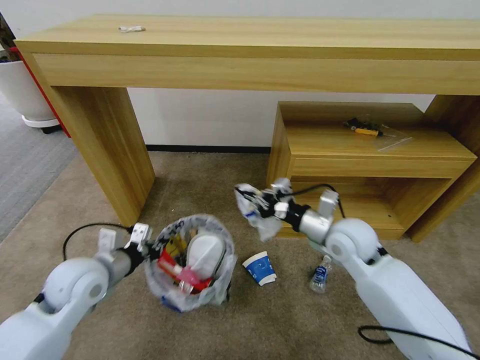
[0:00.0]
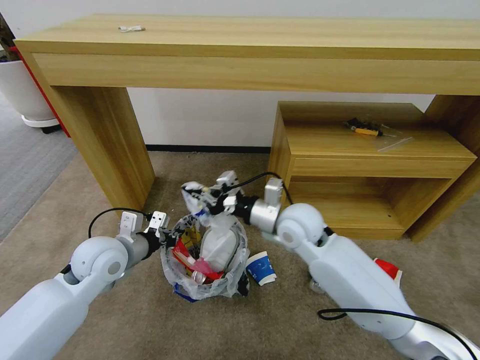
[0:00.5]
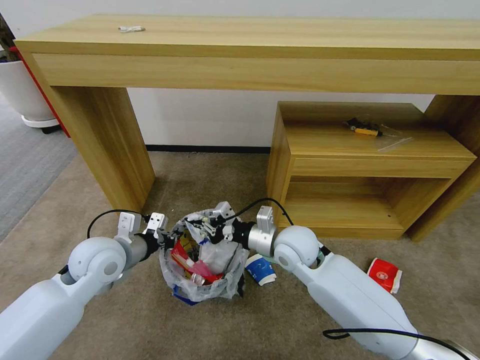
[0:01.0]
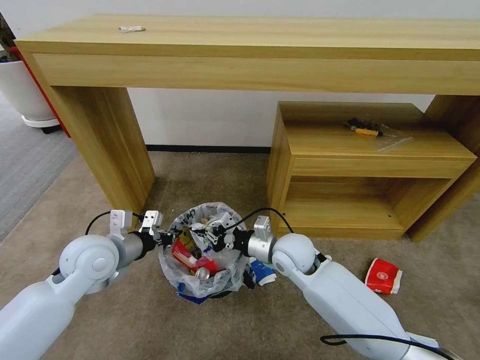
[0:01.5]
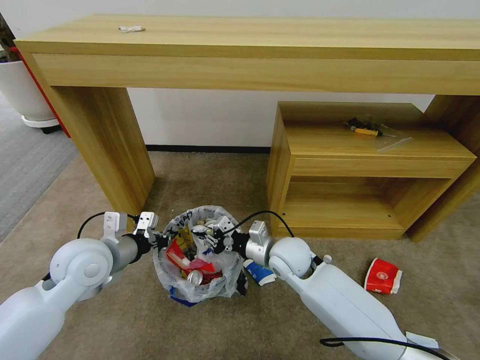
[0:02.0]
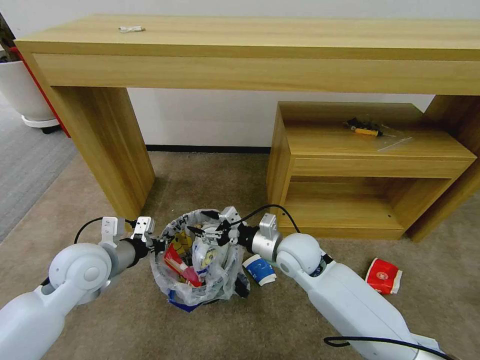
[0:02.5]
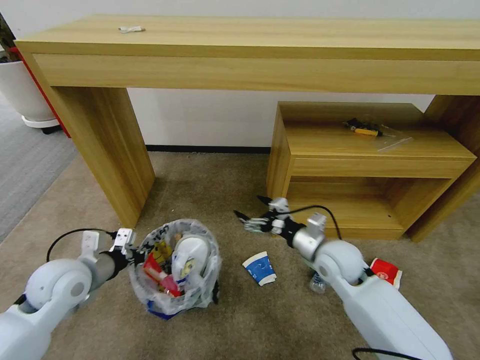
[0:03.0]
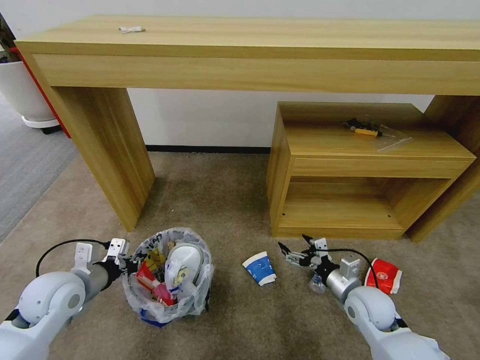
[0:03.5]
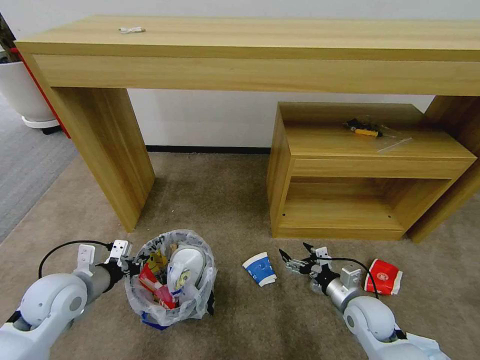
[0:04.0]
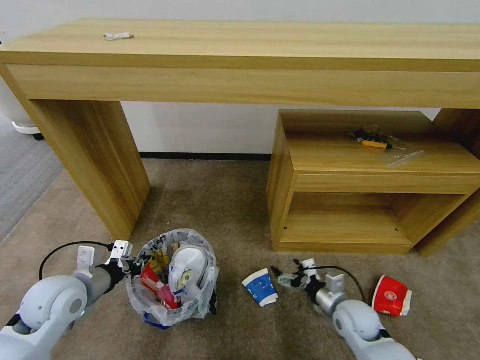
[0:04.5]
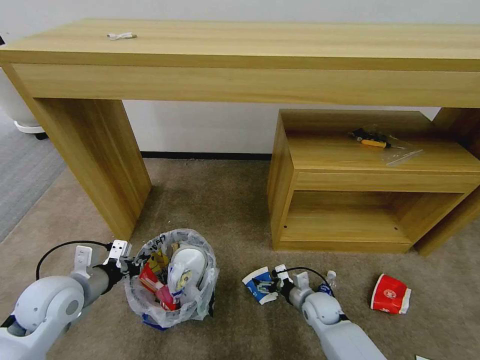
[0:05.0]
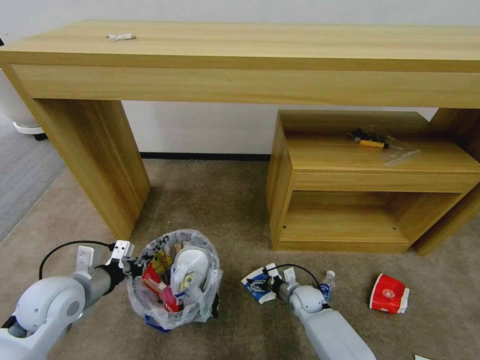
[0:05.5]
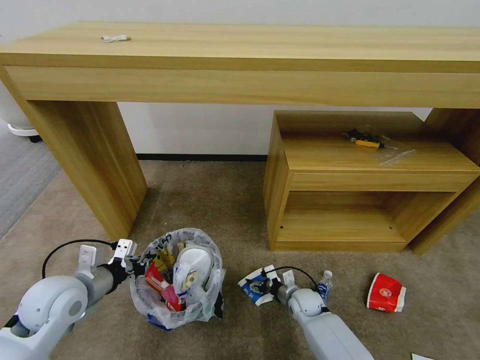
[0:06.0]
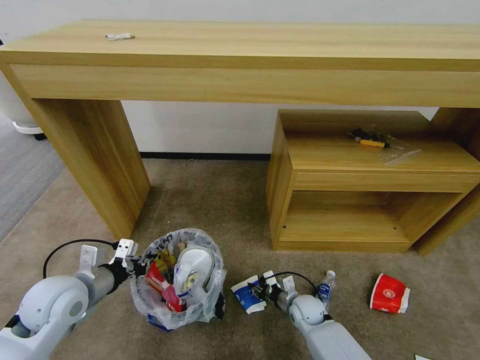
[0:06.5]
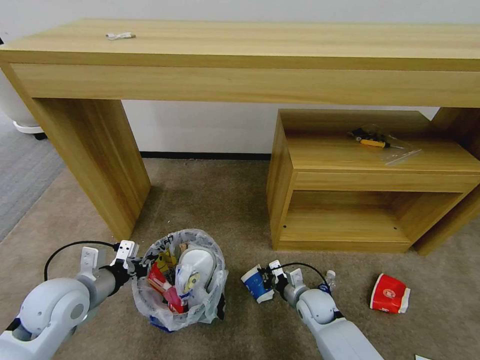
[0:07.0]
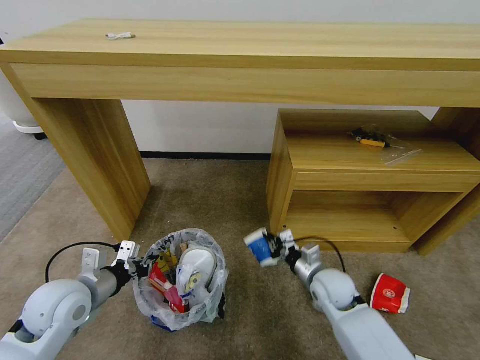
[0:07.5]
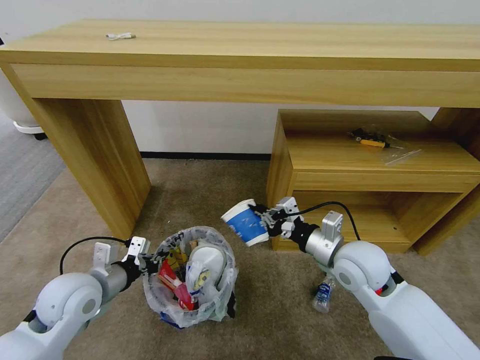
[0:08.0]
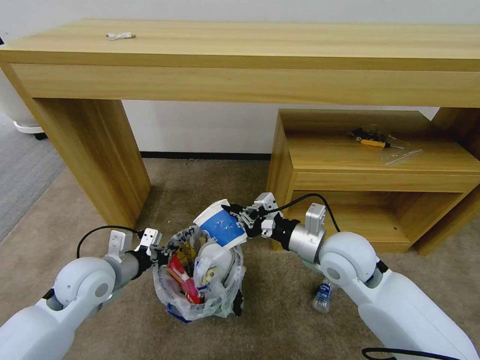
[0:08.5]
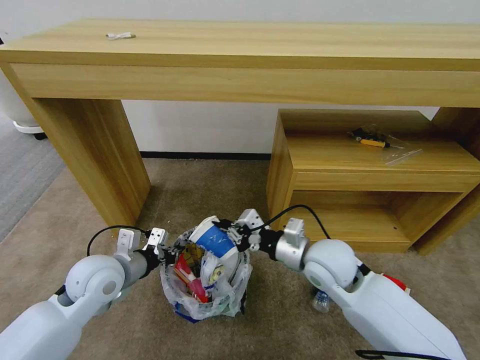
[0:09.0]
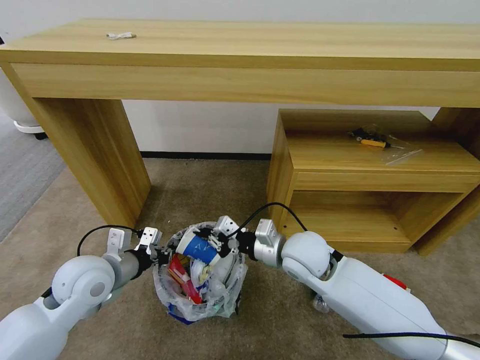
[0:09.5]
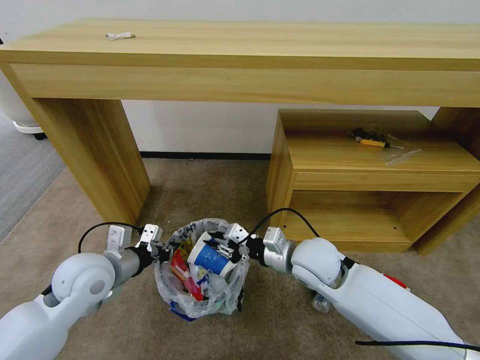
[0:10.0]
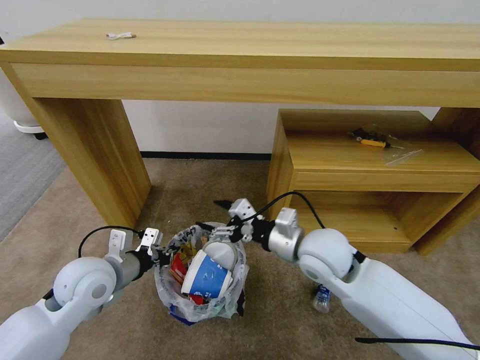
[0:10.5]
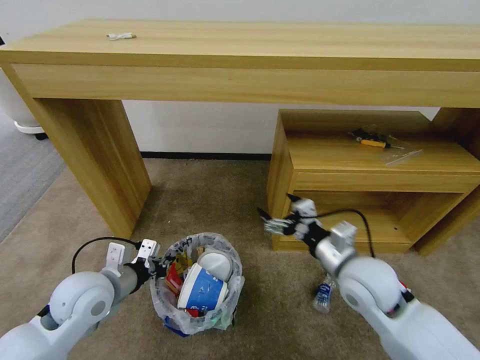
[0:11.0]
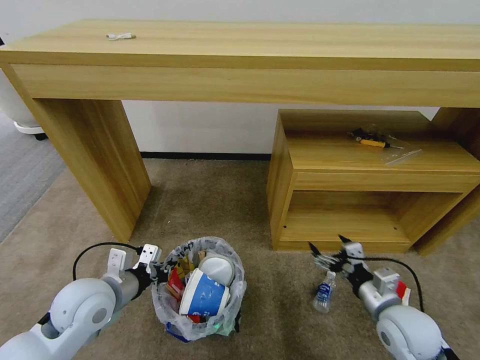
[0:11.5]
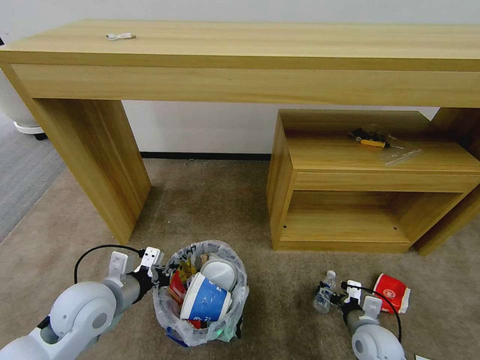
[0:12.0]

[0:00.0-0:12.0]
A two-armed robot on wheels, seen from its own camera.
Task of the whole recording: Pick up the trash bin and place the garbage on the floor into it.
0:00.0 to 0:02.0: The right gripper travels to the left and downward by approximately 15 cm.
0:02.0 to 0:04.0: The right gripper is displaced to the right, backward and downward by approximately 25 cm, and opens; the left gripper heads downward and to the left, covering roughly 10 cm.
0:04.0 to 0:06.0: The right gripper travels downward, to the left and forward by approximately 20 cm.
0:06.0 to 0:08.0: The right gripper travels upward by about 30 cm, and closes up.
0:08.0 to 0:10.0: The right gripper goes some 10 cm to the left.
0:10.0 to 0:12.0: The right gripper heads downward, to the right and backward, covering some 25 cm, and opens. The left gripper ends up some 5 cm from where it was.

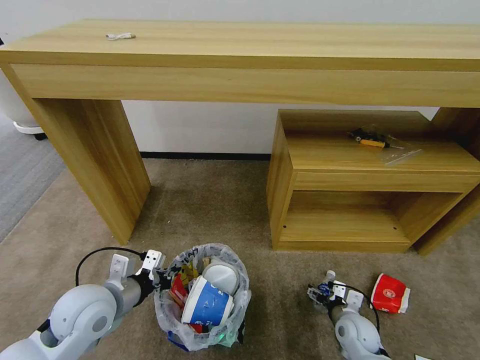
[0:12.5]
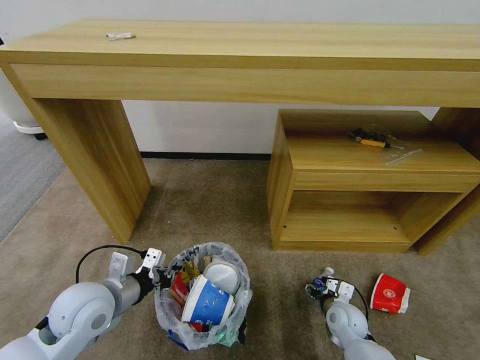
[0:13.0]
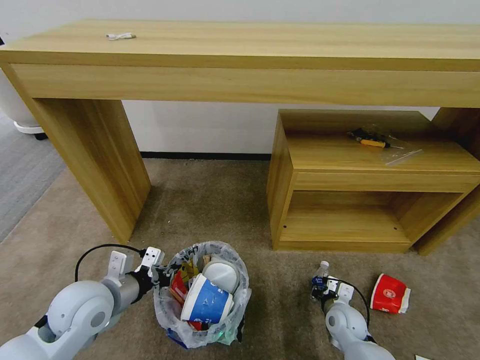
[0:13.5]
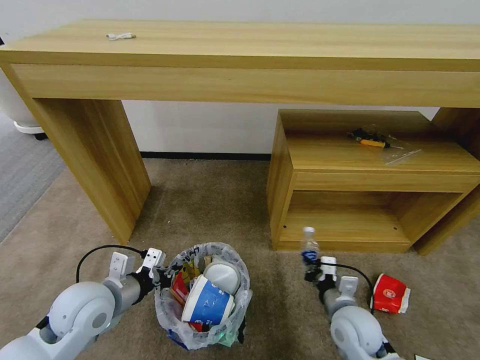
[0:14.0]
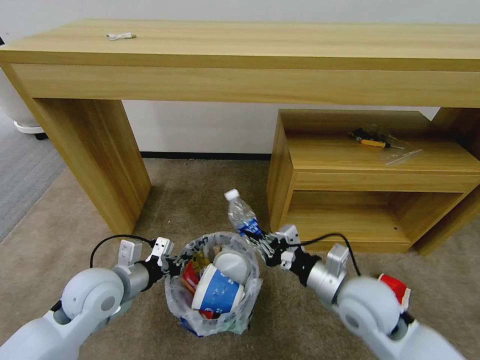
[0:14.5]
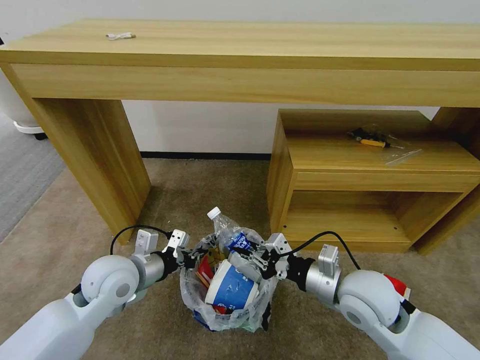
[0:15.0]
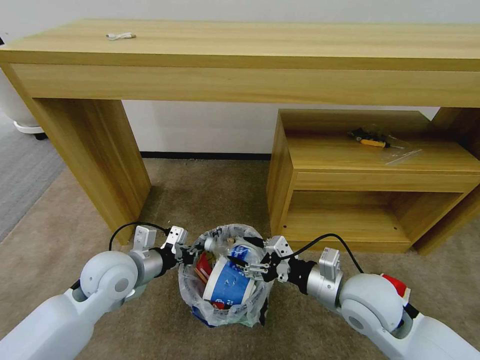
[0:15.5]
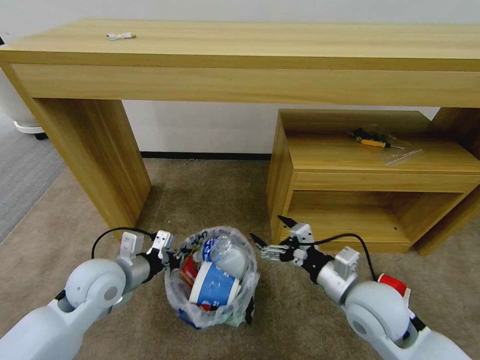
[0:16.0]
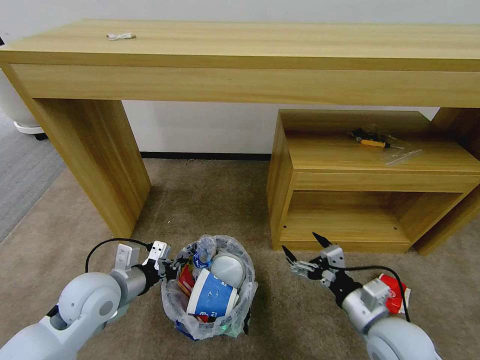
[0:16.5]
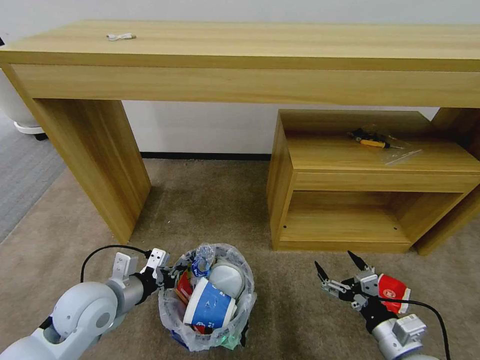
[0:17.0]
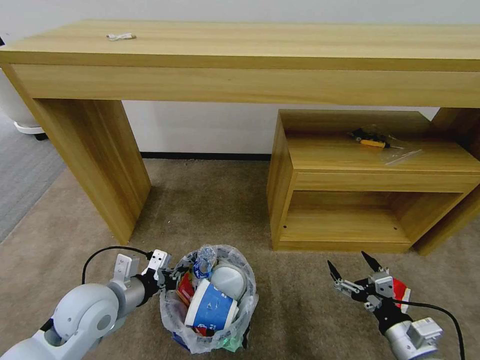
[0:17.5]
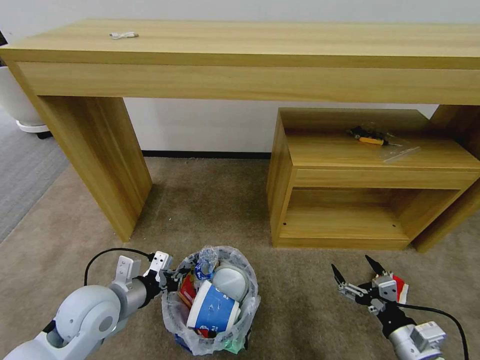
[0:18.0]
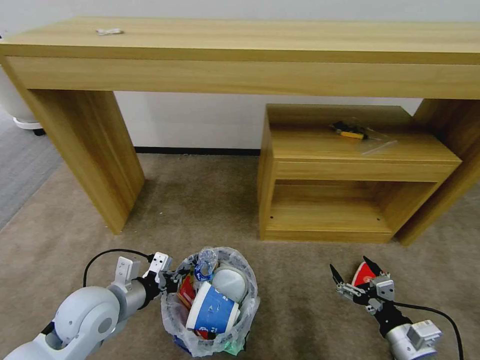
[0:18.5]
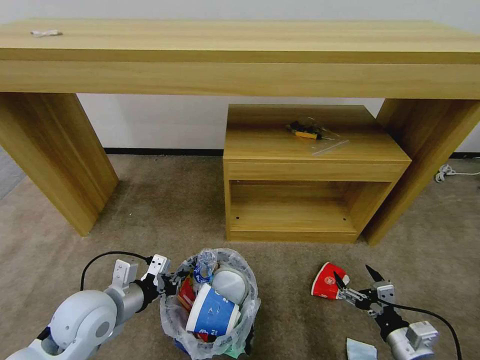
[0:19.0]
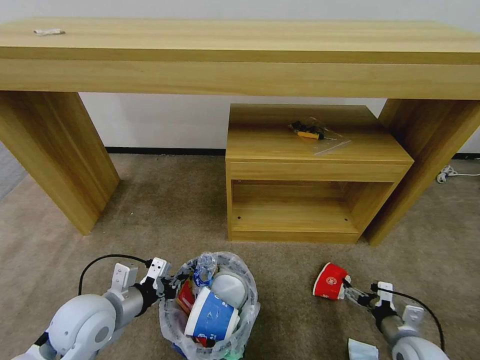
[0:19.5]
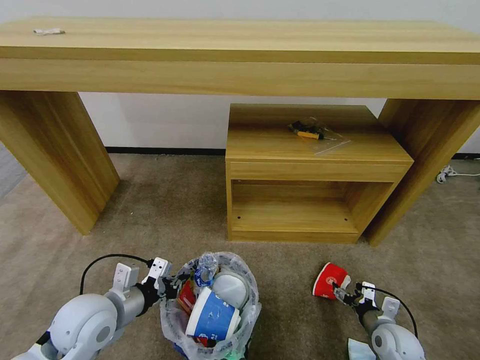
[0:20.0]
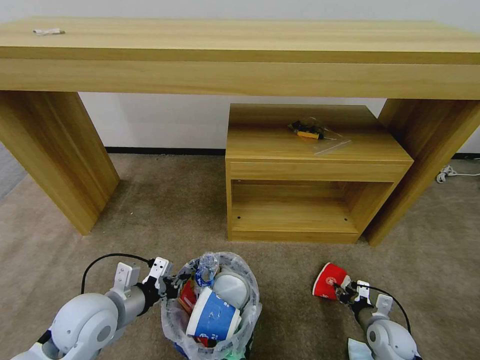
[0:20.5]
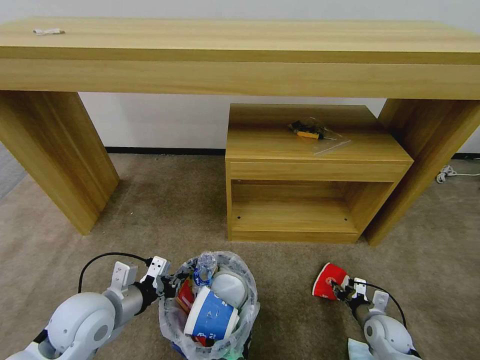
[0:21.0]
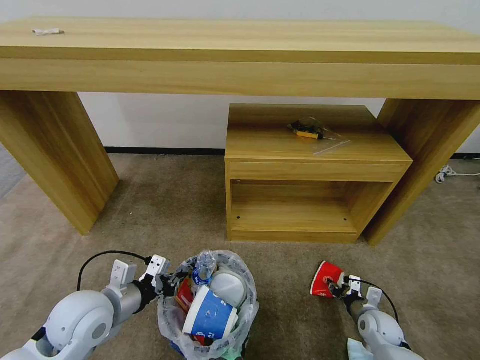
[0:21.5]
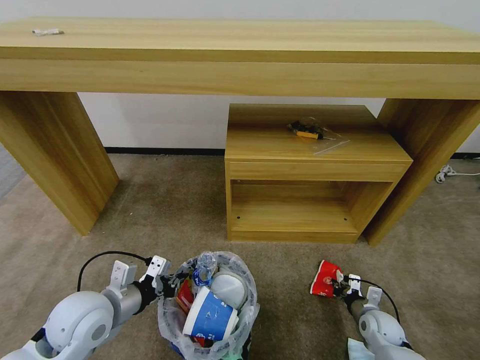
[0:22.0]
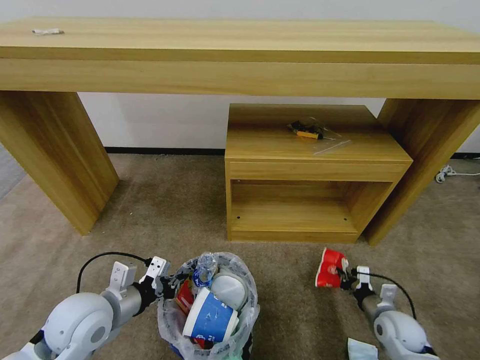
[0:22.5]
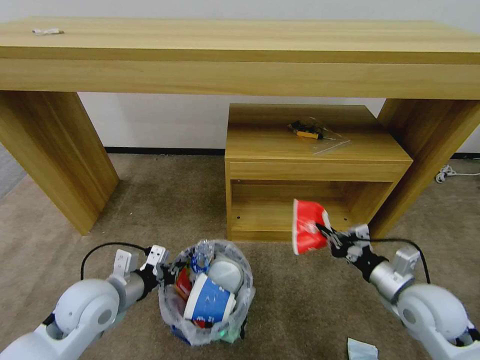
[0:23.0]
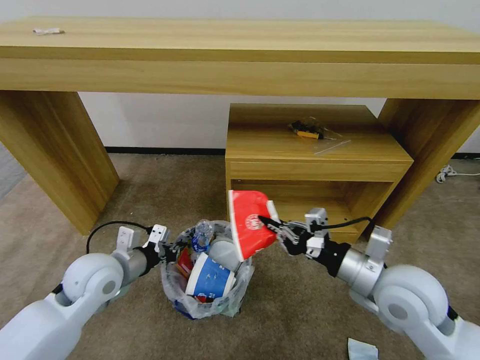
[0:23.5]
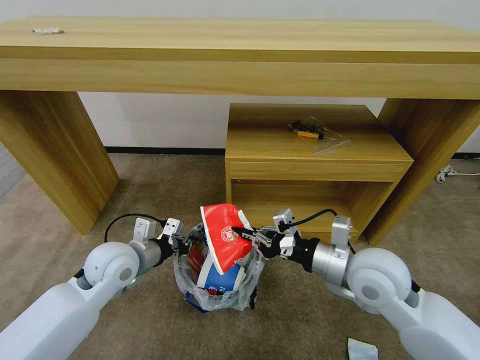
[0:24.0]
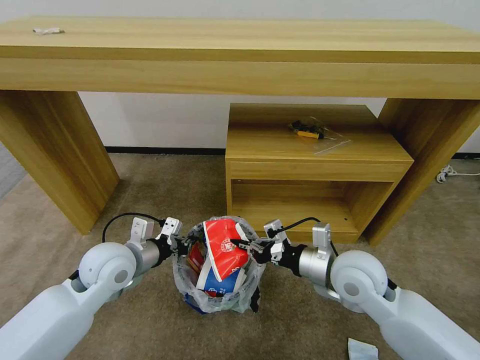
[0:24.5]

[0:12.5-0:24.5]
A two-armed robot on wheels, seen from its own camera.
Task of the whole recording: Pick up the trash bin and place the garbage on the floor into it.
0:12.5 to 0:14.5: The right gripper shifts approximately 25 cm upward, and closes up.
0:14.5 to 0:16.5: The right gripper is displaced backward by roughly 5 cm, and opens.
0:16.5 to 0:18.5: The right gripper heads to the right, downward and backward, covering about 10 cm.
0:18.5 to 0:20.5: The right gripper shifts roughly 15 cm downward and forward, and closes its fingers.
0:20.5 to 0:22.5: The right gripper closes.
0:22.5 to 0:24.5: The left gripper travels forward by some 10 cm, while the right gripper travels upward and to the left by about 30 cm.

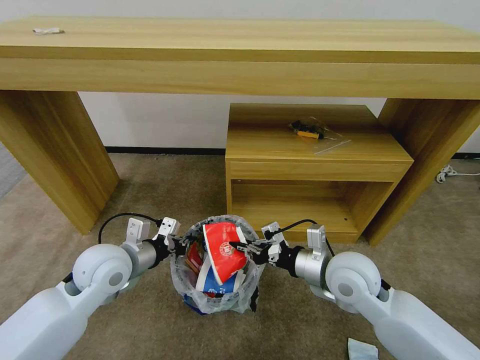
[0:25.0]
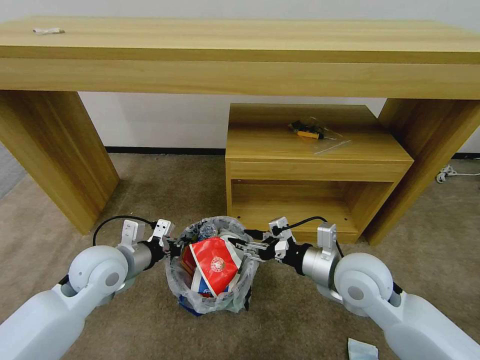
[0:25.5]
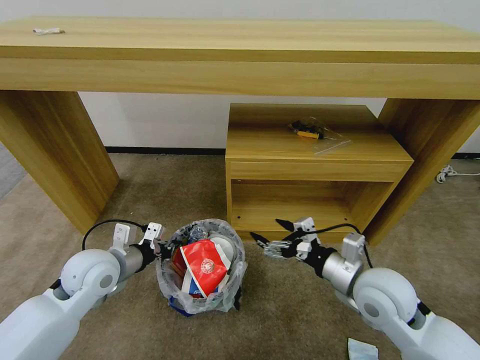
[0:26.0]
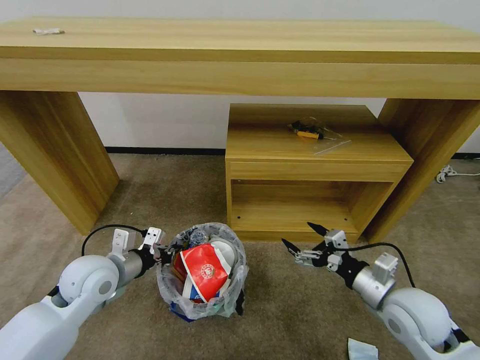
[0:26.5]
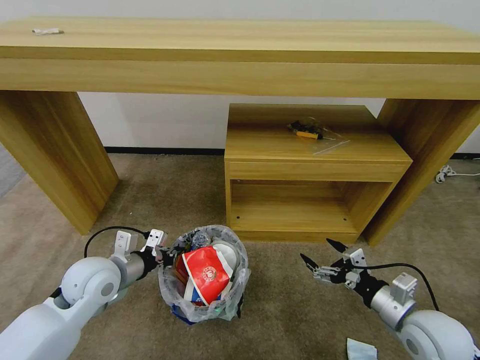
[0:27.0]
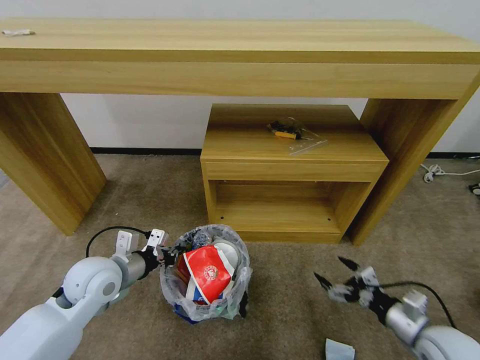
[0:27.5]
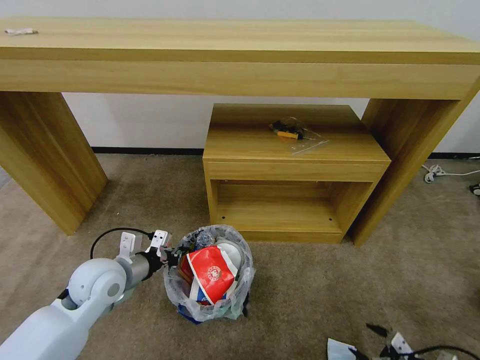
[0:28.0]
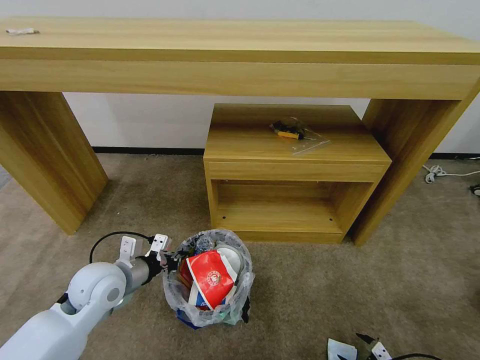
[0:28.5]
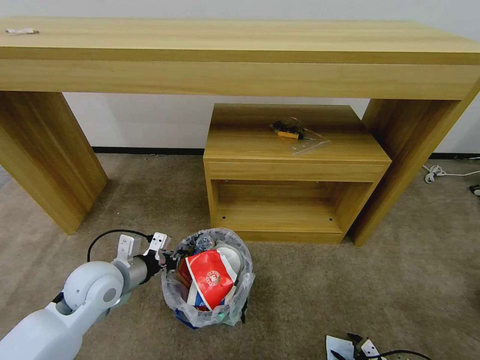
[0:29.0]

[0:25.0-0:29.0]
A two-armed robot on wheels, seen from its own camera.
Task of the whole recording: Pick up the trash bin and place the garbage on the floor into it.
0:25.0 to 0:27.0: The right gripper moves to the right, backward and downward, some 20 cm, and opens up.
0:27.0 to 0:29.0: The right gripper heads downward, to the right and backward, covering about 30 cm.
